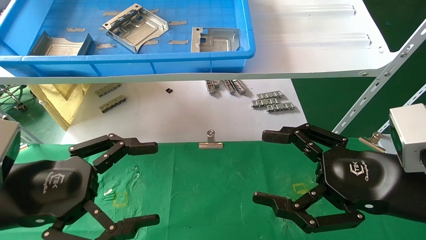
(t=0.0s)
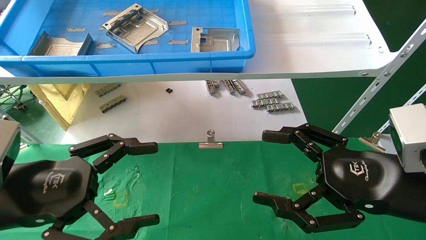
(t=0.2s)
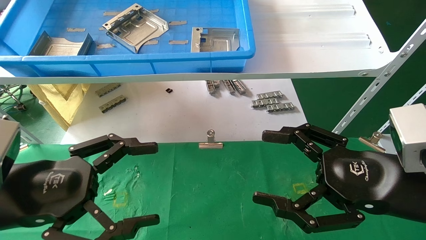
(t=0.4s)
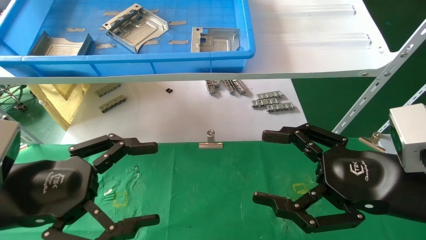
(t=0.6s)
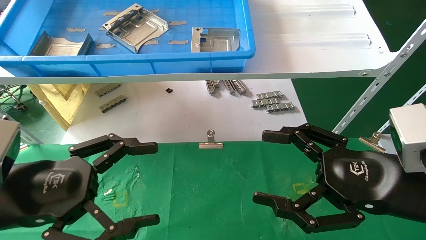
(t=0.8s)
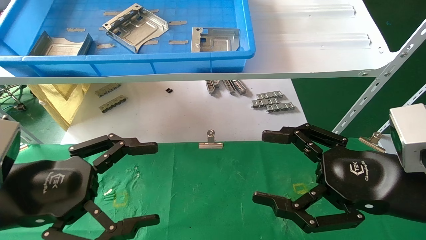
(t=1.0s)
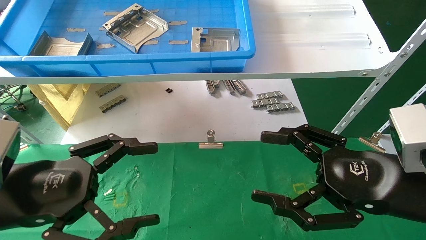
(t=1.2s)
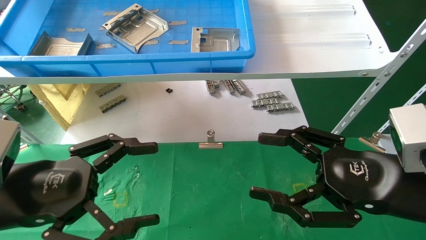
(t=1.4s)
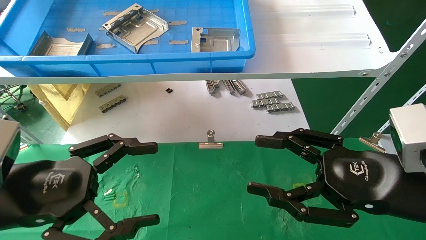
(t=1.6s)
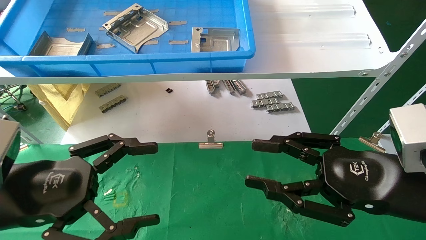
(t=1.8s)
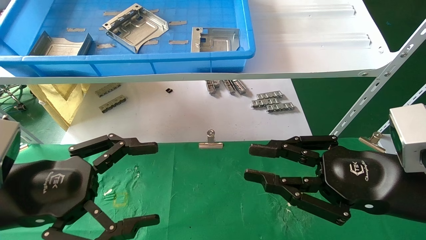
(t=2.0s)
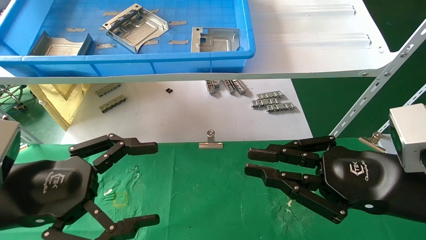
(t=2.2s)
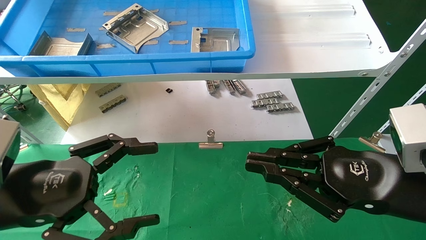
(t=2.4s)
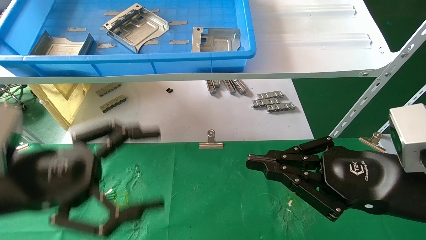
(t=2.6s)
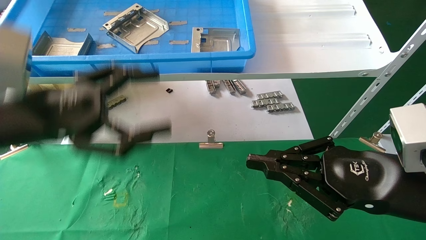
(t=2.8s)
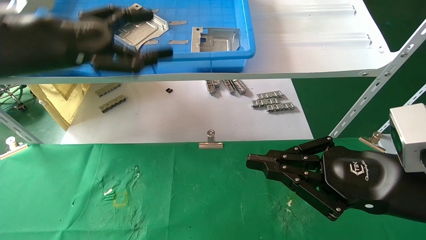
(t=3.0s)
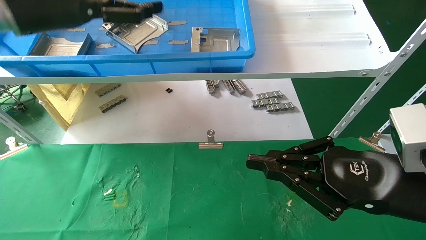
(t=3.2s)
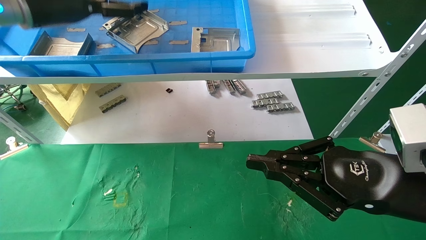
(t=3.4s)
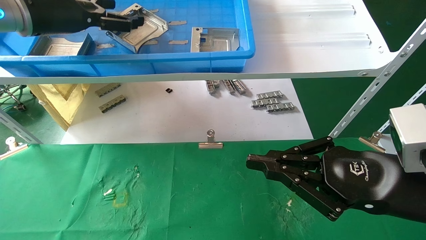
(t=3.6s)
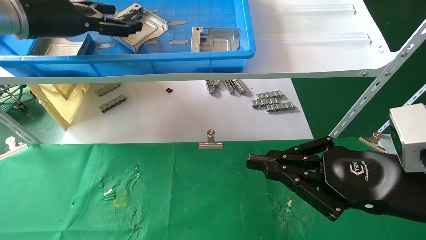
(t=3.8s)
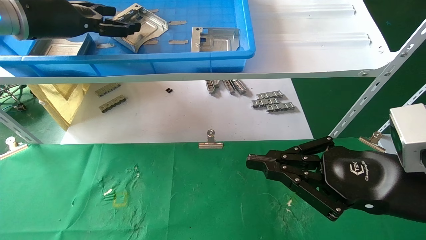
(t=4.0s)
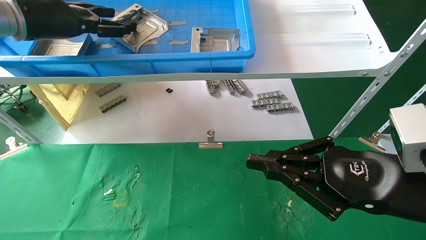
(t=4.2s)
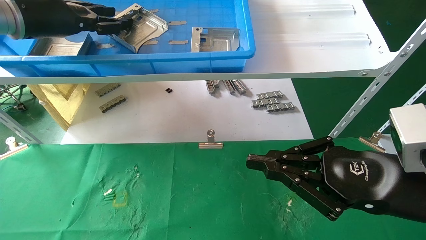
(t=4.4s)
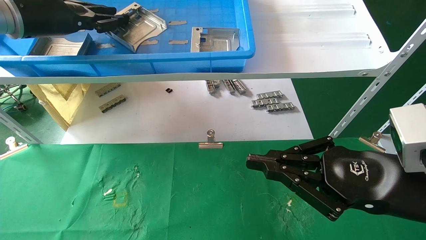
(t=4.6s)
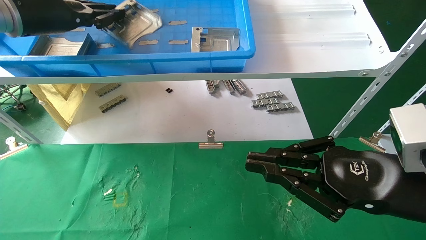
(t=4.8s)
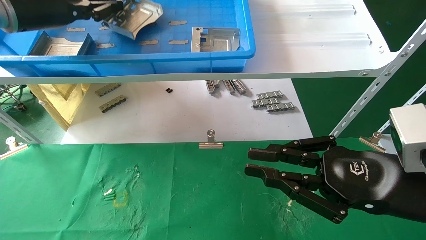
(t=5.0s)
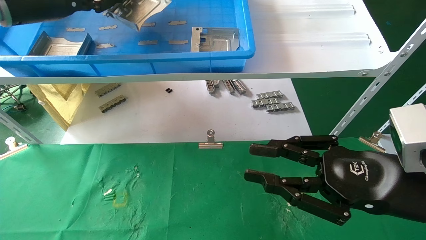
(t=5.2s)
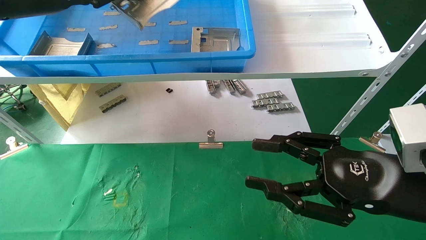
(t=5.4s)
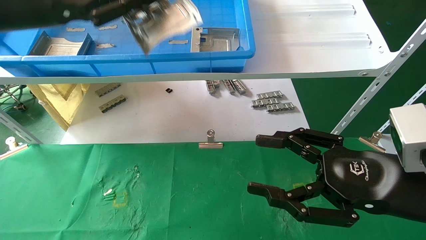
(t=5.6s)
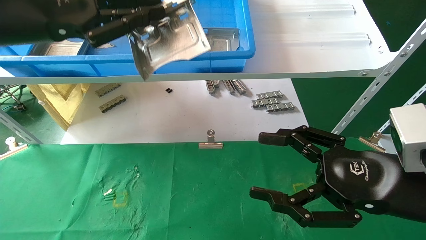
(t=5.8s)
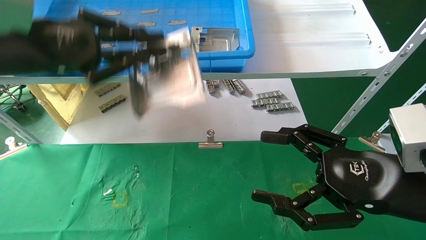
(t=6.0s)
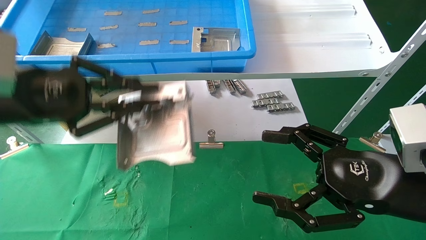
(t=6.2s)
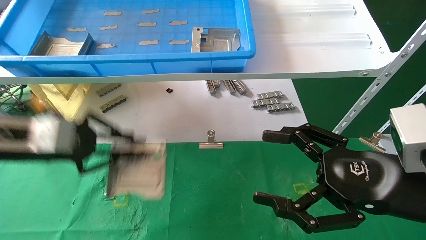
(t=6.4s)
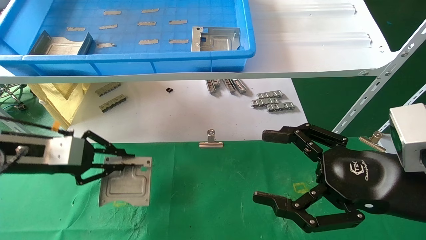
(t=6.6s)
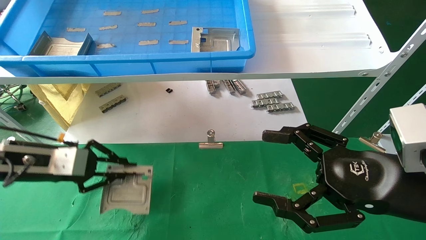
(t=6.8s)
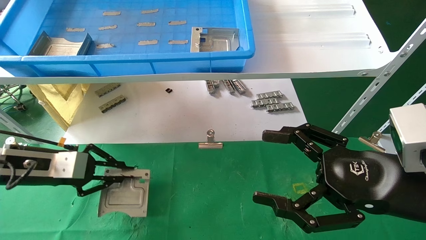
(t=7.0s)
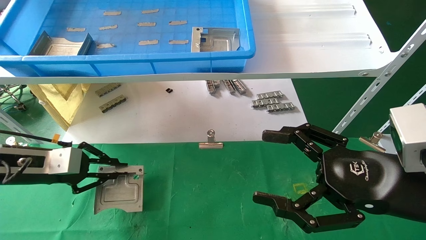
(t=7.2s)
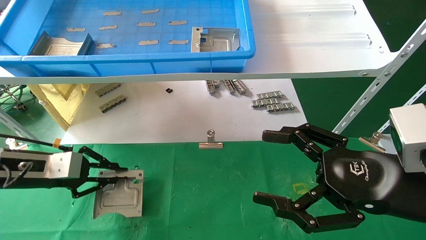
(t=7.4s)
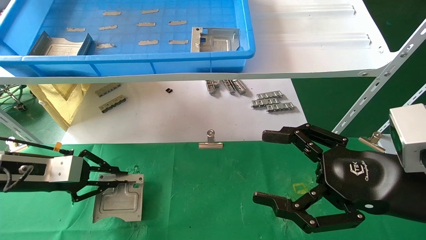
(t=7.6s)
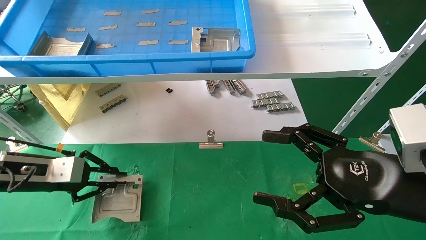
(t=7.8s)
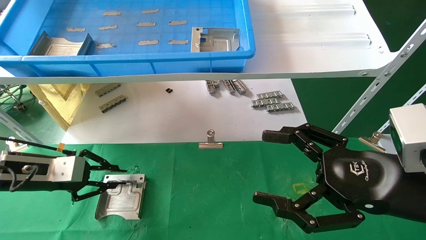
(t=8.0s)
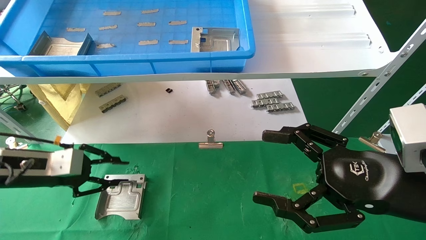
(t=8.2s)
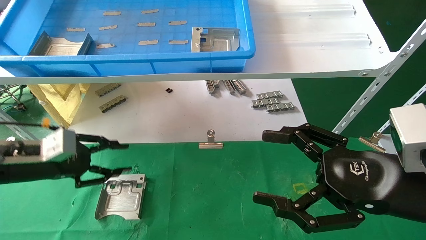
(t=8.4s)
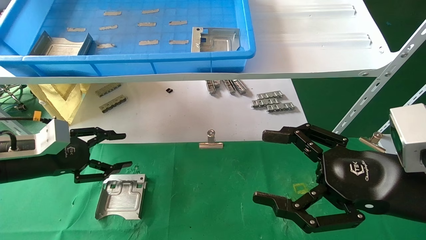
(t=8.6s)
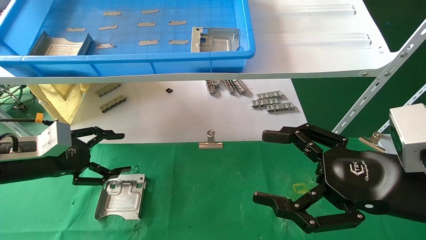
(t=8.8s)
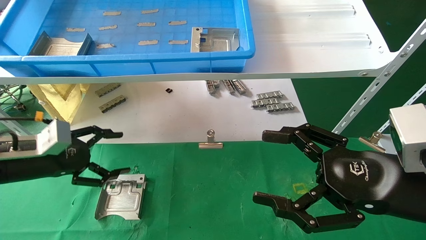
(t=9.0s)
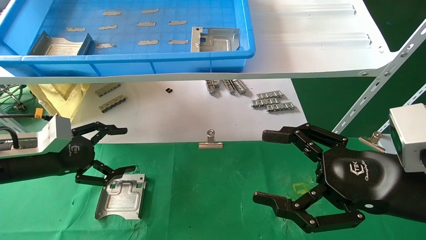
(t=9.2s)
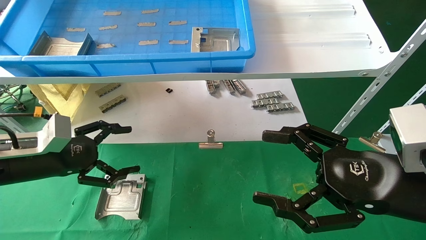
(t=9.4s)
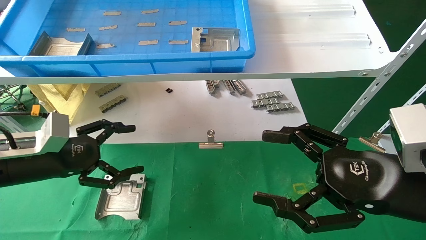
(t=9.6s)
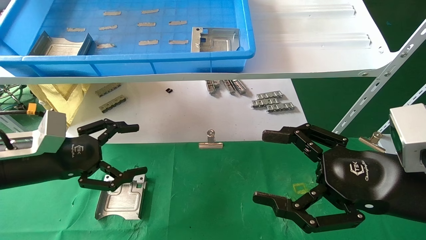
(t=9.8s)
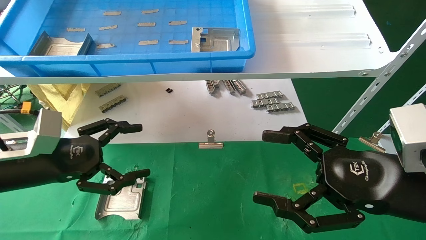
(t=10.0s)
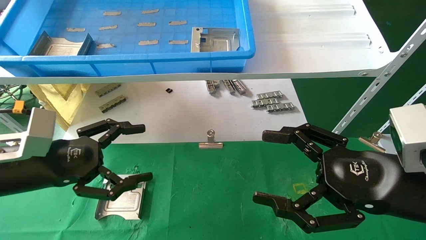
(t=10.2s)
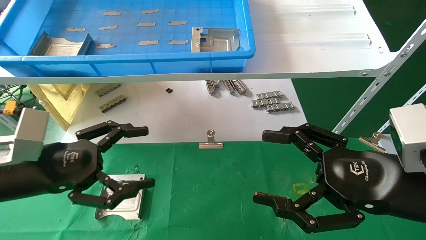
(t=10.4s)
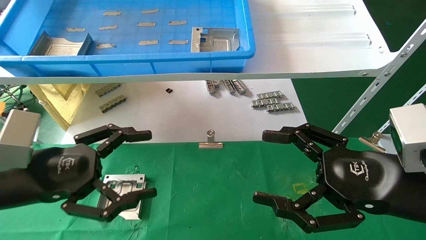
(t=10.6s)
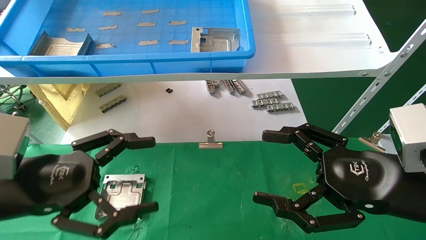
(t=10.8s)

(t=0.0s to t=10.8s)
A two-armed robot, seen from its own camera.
Task of the whole recording: use the mechanical arm to pick up the parts and place them on the table.
Step, t=2.6s - t=4.8s: Pick up the hard drive bracket from the feeding area.
Step, t=5.0s - t=8.4s: Place the hard drive bracket into the box.
t=0.0s - t=1.6s: The two grippers keep their place.
t=1.6s - t=3.0s: The right gripper closes, while the left gripper heads upward and forward, covering some 20 cm.
t=3.0s - t=4.6s: The left gripper moves forward and upward, about 10 cm, and closes its fingers.
t=4.6s - t=6.2s: The left gripper shifts roughly 15 cm backward and downward, and closes its fingers. Meanwhile the right gripper opens up.
t=6.2s - t=7.8s: The left gripper shifts roughly 15 cm downward, to the left and forward.
t=7.8s - t=9.2s: The left gripper opens its fingers.
t=9.2s - t=10.8s: The left gripper travels backward and to the right by about 15 cm.

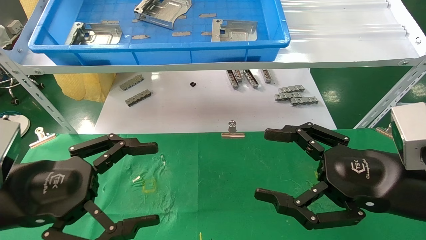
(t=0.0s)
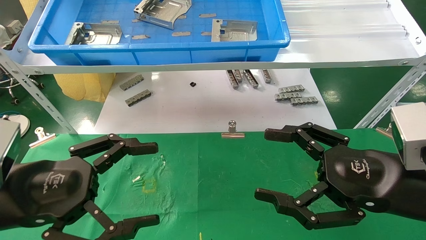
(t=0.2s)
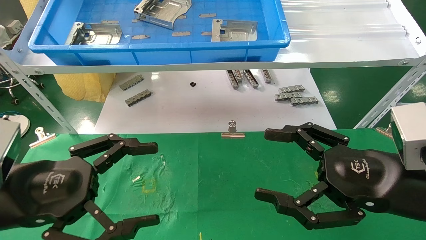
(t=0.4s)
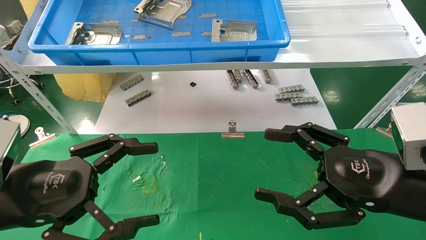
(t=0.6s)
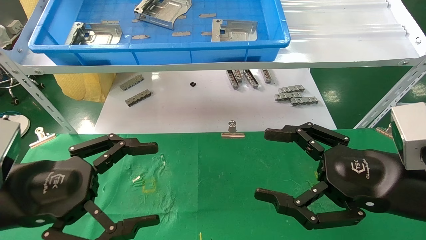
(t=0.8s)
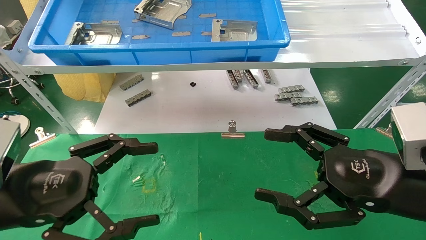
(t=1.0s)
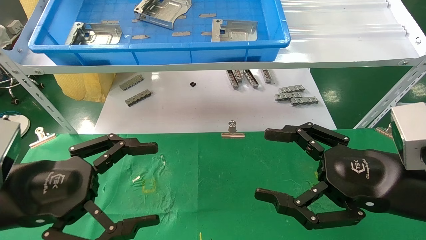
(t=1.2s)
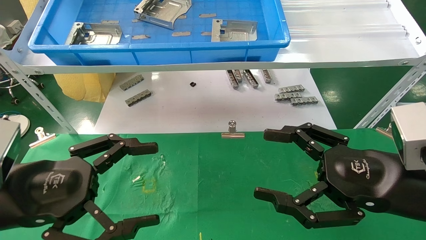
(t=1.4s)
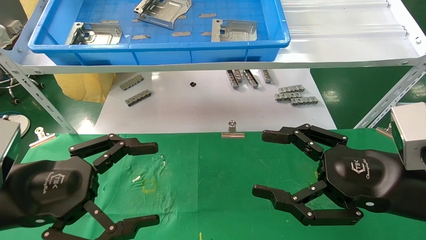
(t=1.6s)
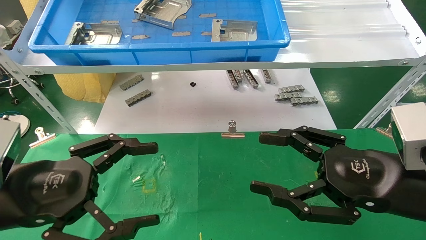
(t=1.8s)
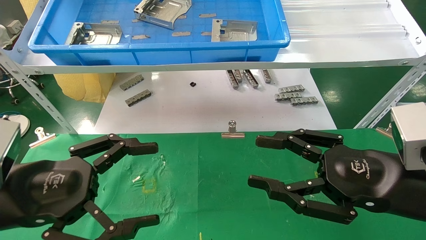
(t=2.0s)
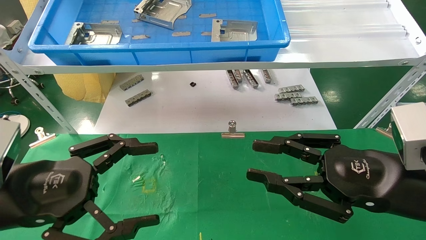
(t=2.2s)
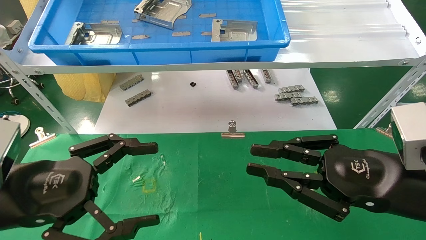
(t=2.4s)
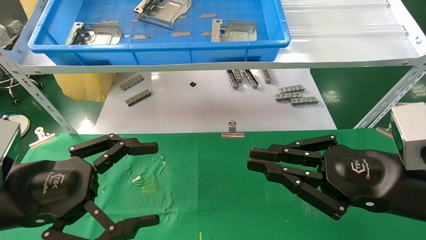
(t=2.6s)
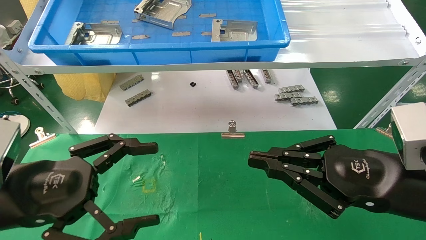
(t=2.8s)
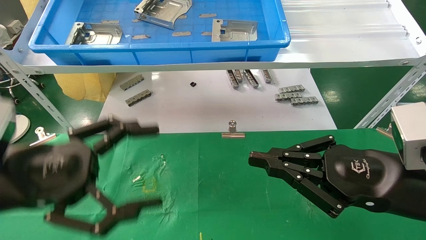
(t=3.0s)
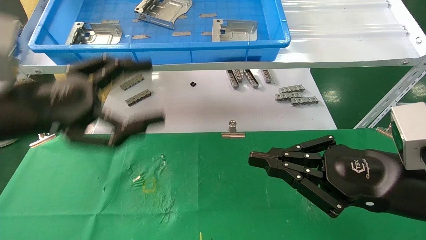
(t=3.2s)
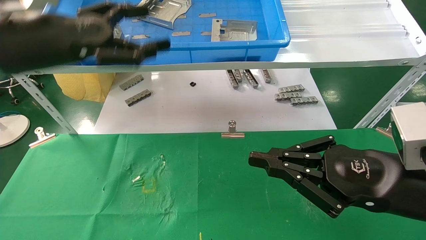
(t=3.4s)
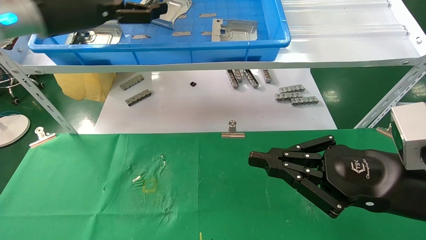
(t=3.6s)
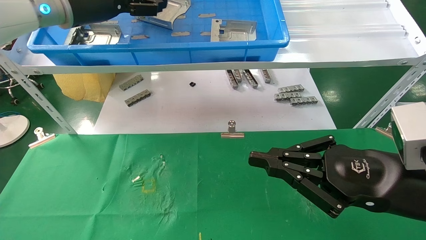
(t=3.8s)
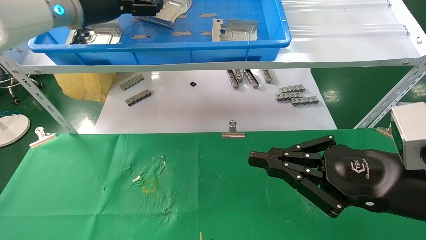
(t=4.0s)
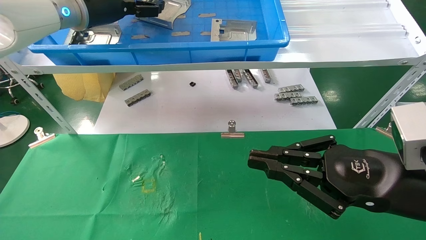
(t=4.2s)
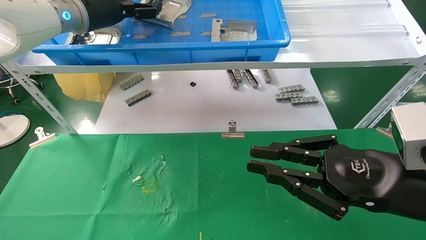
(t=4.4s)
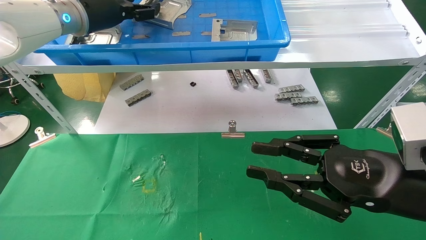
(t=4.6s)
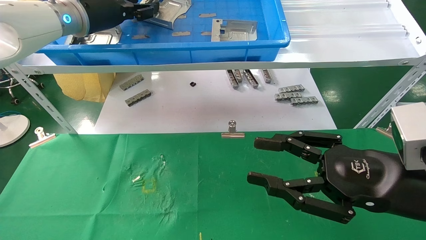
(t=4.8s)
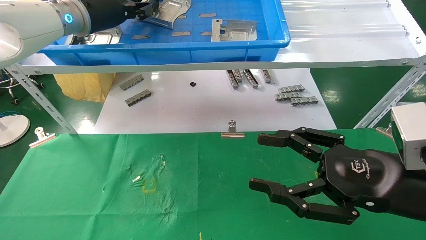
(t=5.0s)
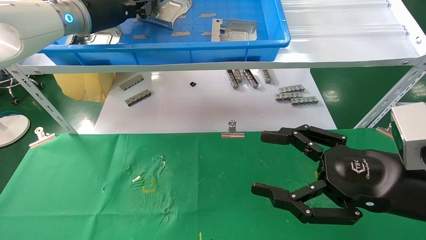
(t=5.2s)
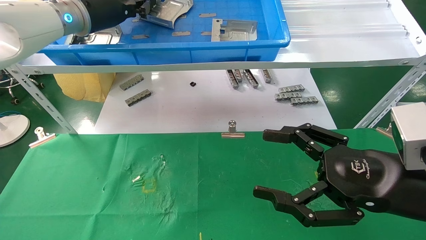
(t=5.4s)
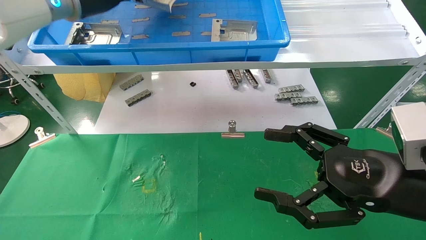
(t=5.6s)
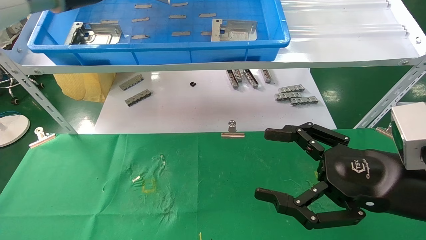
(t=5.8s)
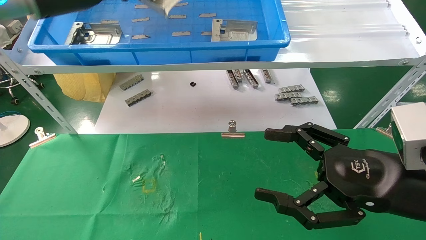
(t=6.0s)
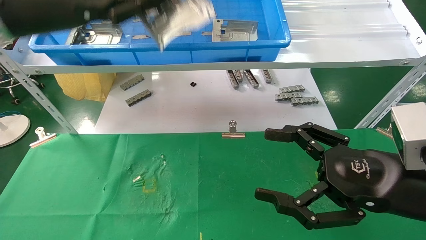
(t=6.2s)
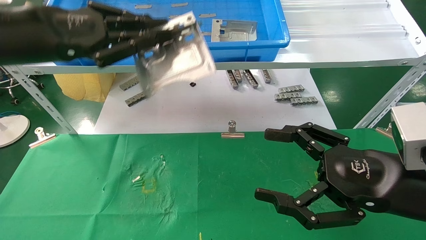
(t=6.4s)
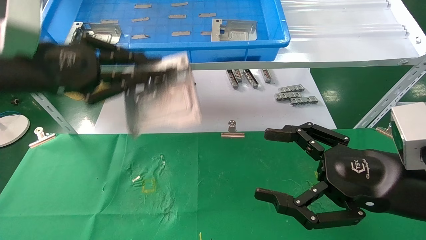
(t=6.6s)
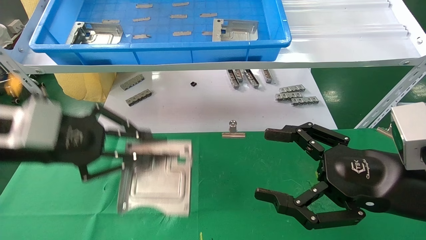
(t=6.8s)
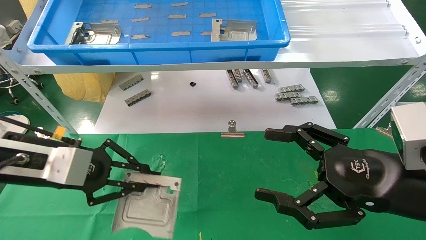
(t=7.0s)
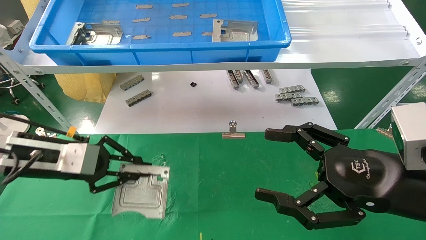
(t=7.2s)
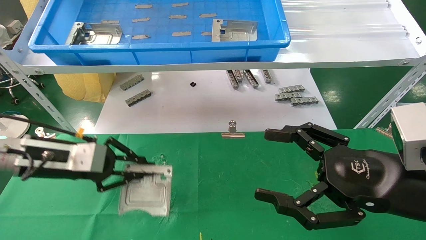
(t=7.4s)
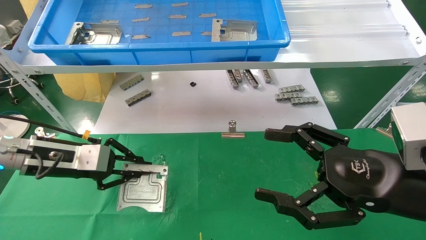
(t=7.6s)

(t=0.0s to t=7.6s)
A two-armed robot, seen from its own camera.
Task of the whole recording: use the mechanical arm to pick up the parts and place them on the table.
Step, t=3.2s - t=5.2s: Pick up the hard drive bracket from the feeding area.
t=0.0s - t=1.6s: The two grippers keep their place.
t=1.6s - t=3.0s: The right gripper closes up.
t=3.0s - t=4.6s: The left gripper moves forward and upward, roughly 30 cm.
t=4.6s - t=6.0s: The left gripper moves backward, about 10 cm, and closes up. The right gripper opens up.
t=6.0s - t=7.6s: The left gripper shifts some 25 cm downward.
